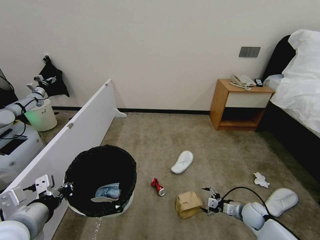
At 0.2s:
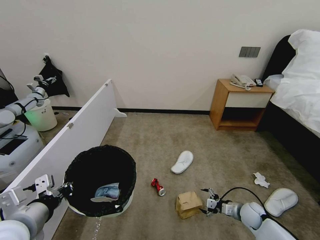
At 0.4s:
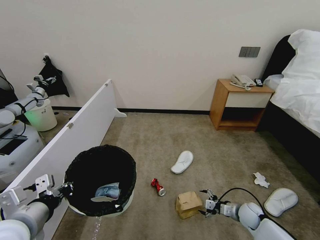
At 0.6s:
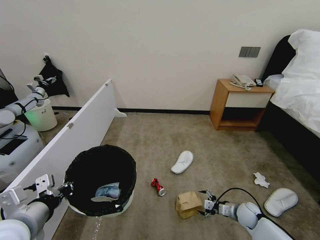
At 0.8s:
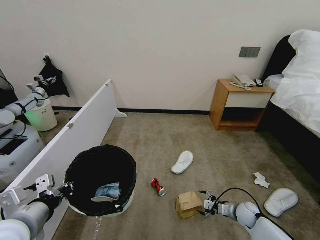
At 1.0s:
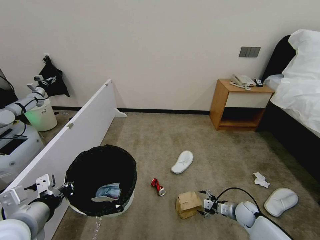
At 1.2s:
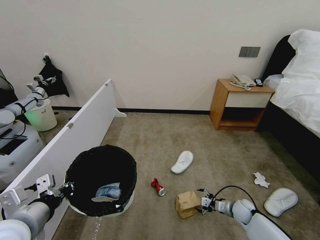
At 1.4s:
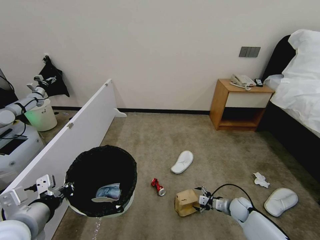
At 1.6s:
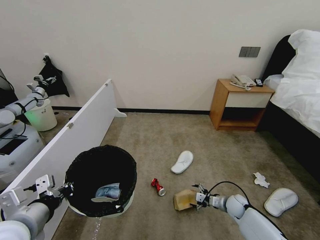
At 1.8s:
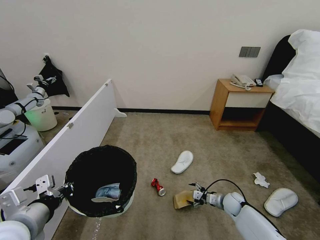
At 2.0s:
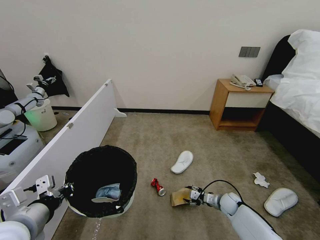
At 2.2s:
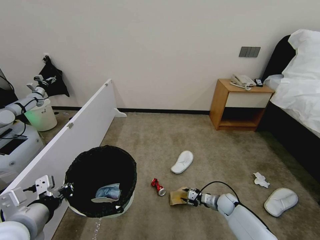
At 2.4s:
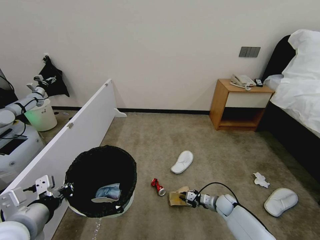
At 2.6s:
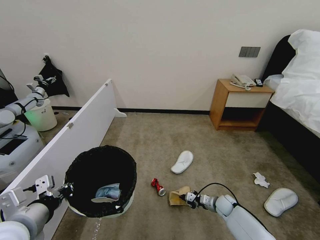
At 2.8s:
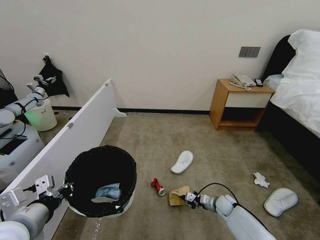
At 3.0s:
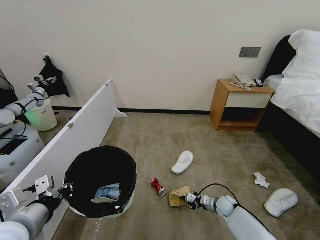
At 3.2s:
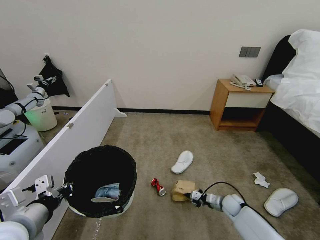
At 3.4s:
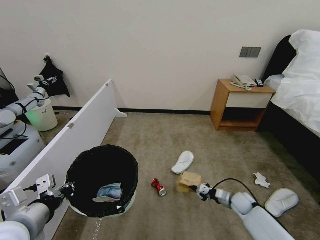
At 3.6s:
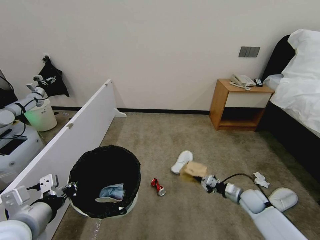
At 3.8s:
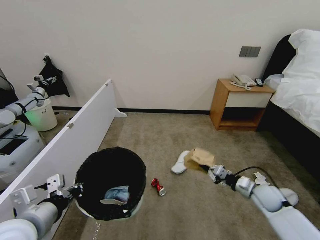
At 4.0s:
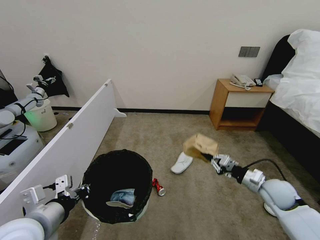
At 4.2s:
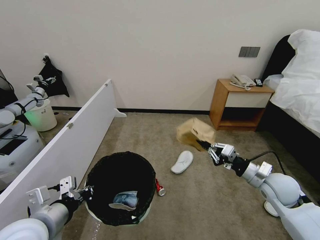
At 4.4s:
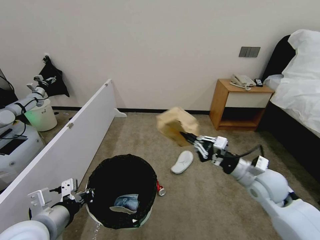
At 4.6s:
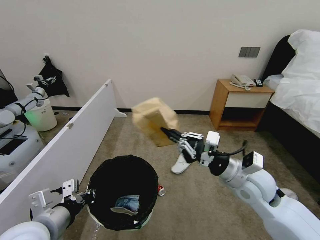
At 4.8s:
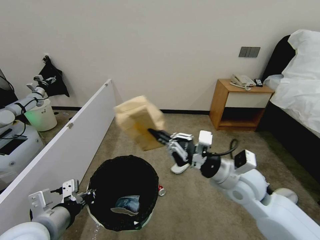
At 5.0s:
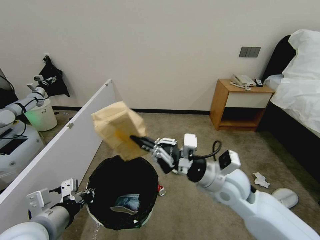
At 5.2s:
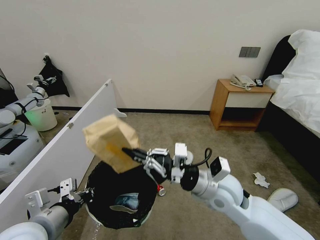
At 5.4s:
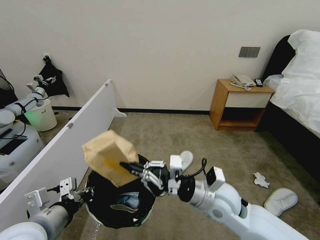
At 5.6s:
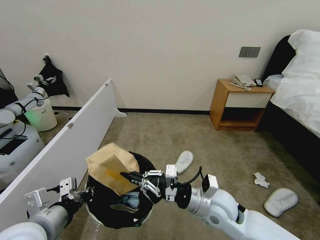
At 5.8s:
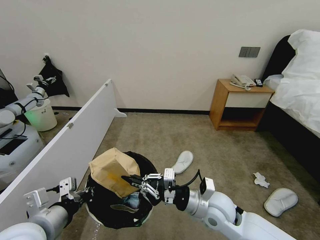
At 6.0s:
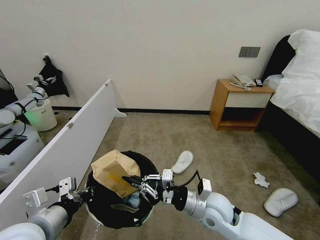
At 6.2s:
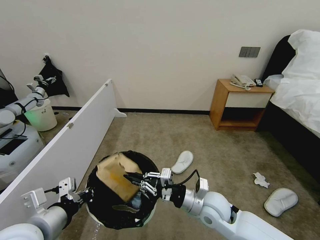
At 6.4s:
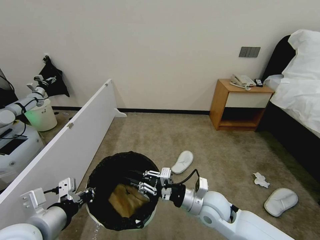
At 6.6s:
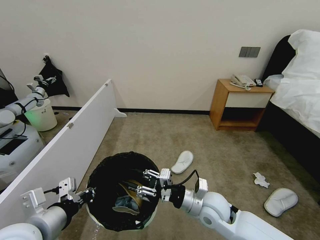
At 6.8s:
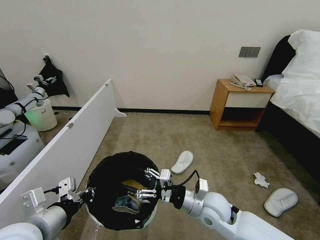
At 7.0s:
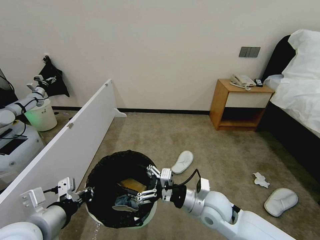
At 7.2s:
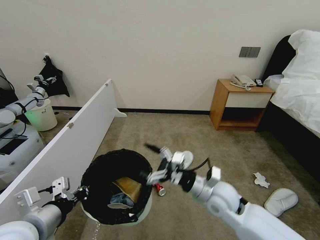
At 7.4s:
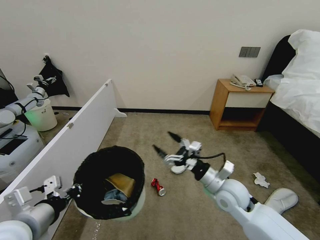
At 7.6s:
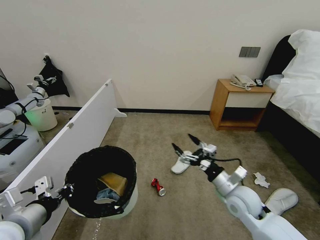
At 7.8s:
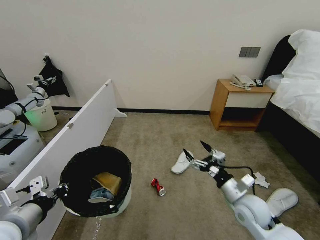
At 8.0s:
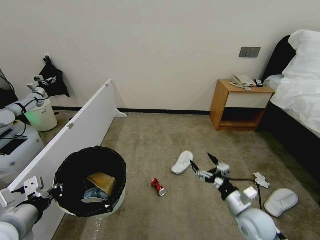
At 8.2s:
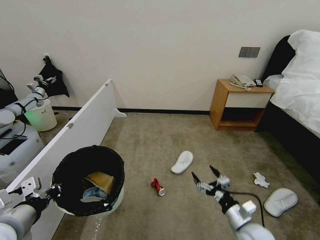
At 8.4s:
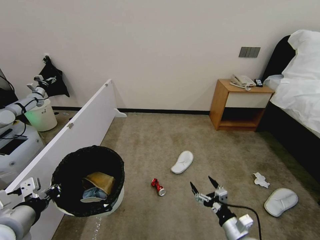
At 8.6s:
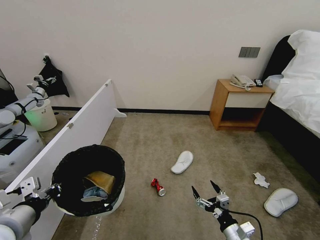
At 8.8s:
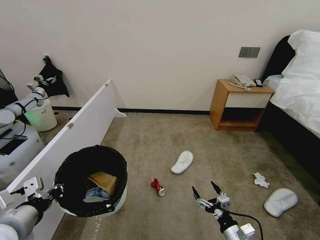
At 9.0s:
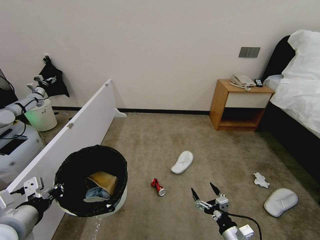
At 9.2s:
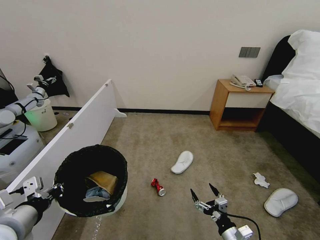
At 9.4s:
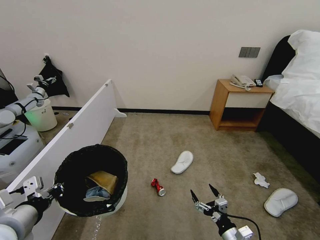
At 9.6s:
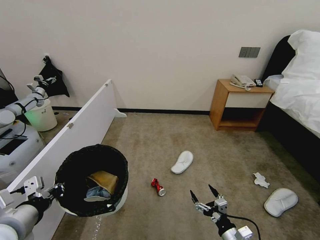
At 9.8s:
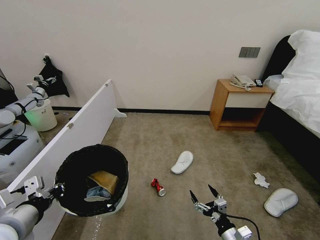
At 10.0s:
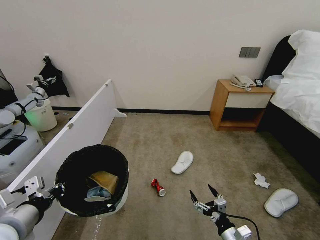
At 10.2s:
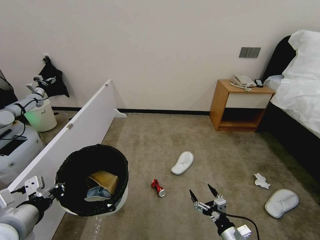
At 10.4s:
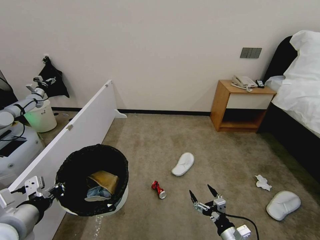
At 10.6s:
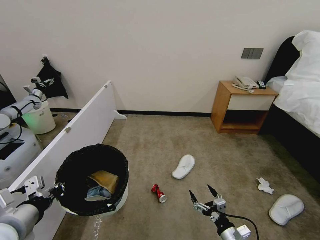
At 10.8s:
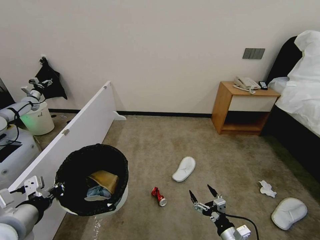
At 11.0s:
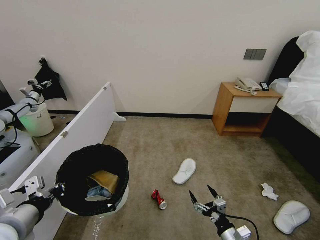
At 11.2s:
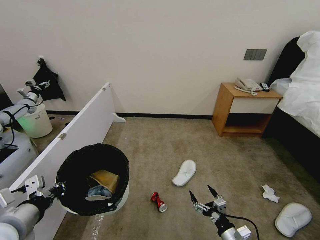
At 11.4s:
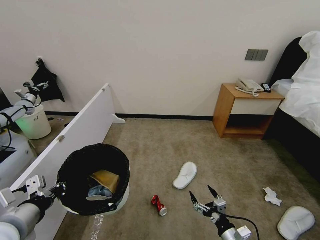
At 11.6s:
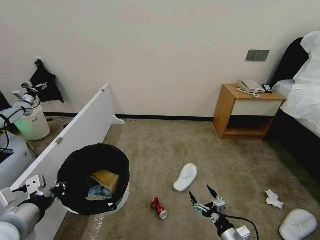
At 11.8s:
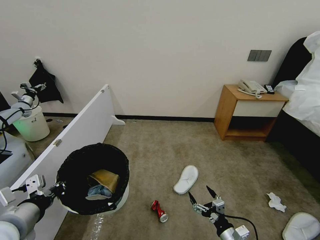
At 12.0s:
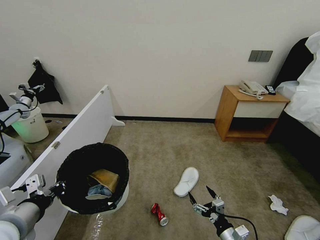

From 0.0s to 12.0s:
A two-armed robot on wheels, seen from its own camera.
Task of the whole recording: Pick up the trash bin, then pick up the garbage from the floor and place it into the trash bin.
From 0.0s to 1.6s: The right gripper shifts by about 5 cm.
From 1.6s to 3.0s: The right gripper moves roughly 5 cm, and closes.
From 3.0s to 4.4s: The right gripper goes about 30 cm upward.
From 4.4s to 6.0s: The right gripper is displaced to the left by approximately 20 cm.
From 6.0s to 7.6s: The right gripper moves to the right, some 10 cm, and opens up.
From 7.6s to 9.0s: The right gripper is displaced downward and backward by approximately 20 cm.
From 9.0s to 10.4s: Both grippers stay put.

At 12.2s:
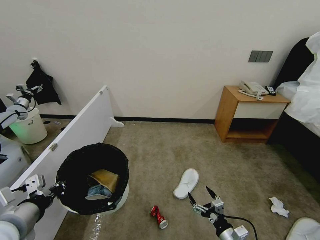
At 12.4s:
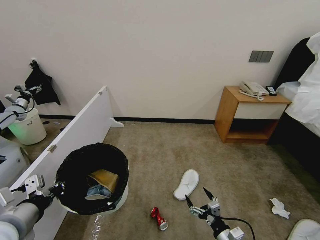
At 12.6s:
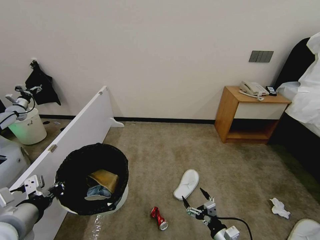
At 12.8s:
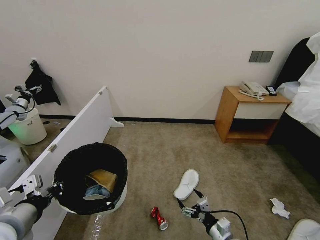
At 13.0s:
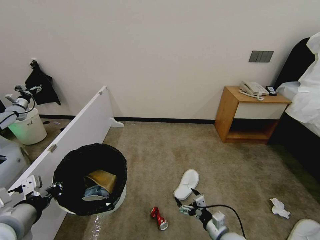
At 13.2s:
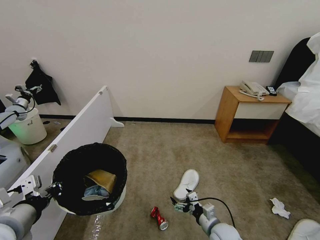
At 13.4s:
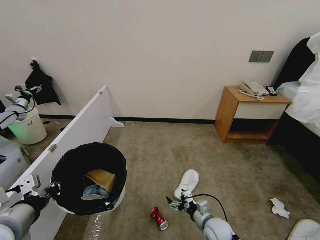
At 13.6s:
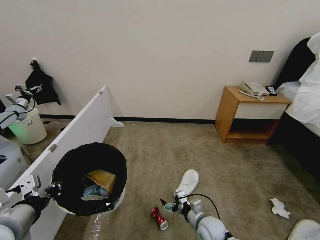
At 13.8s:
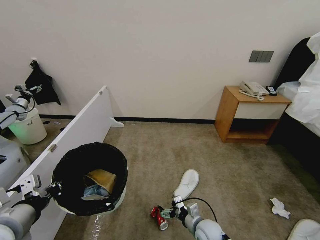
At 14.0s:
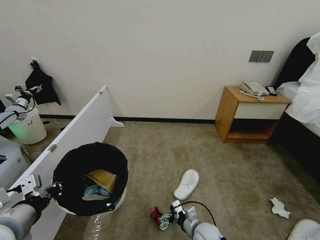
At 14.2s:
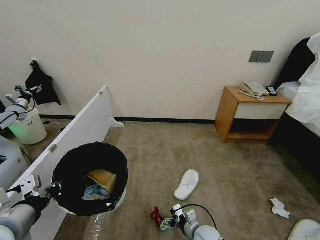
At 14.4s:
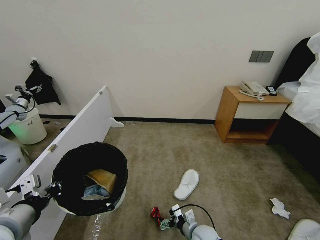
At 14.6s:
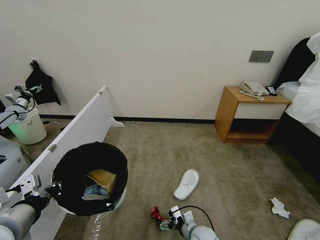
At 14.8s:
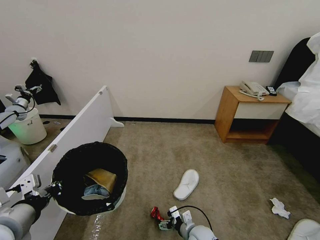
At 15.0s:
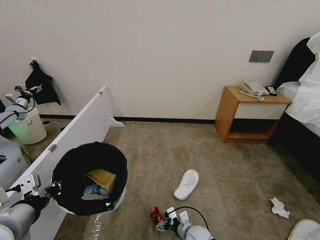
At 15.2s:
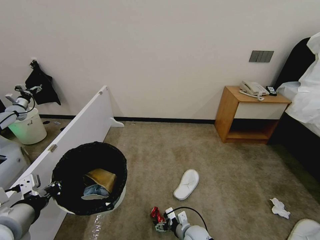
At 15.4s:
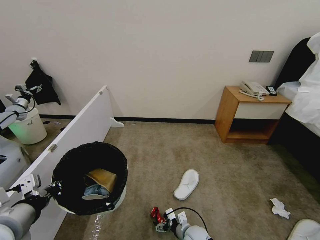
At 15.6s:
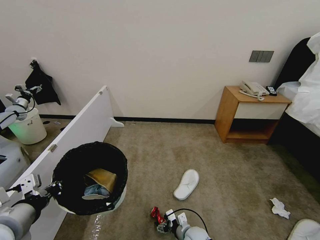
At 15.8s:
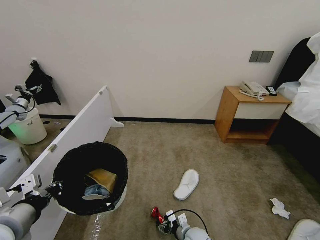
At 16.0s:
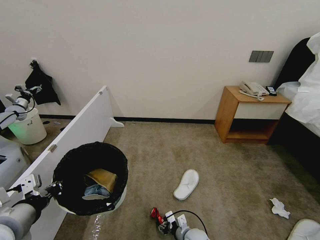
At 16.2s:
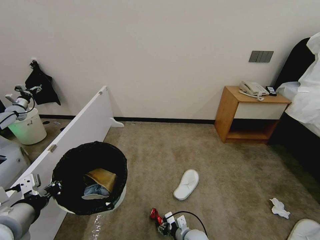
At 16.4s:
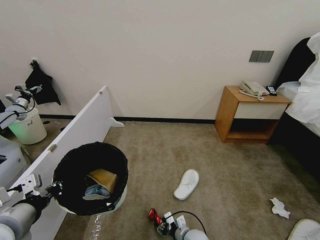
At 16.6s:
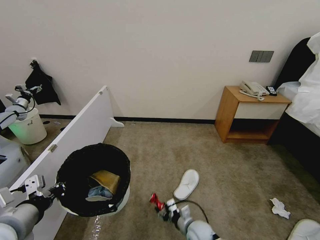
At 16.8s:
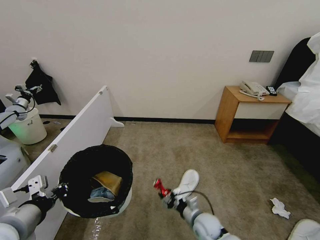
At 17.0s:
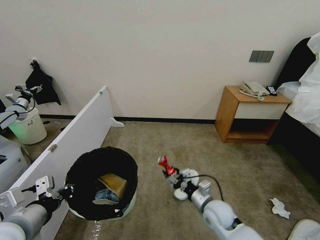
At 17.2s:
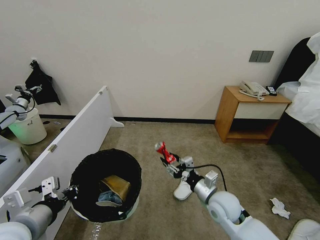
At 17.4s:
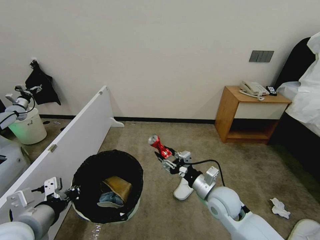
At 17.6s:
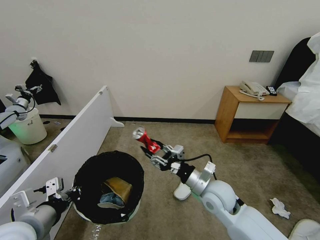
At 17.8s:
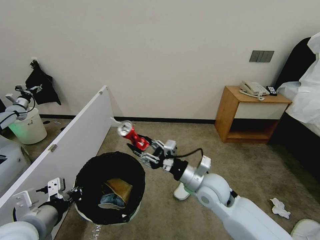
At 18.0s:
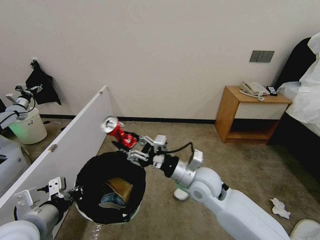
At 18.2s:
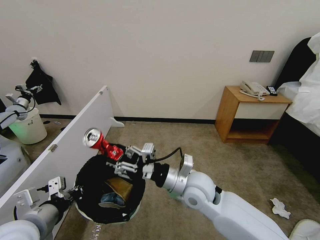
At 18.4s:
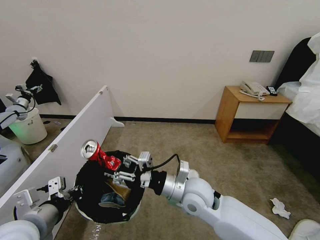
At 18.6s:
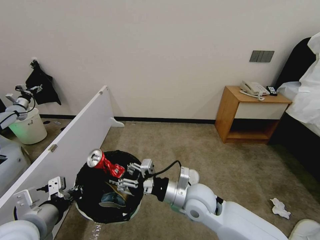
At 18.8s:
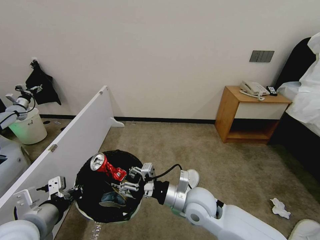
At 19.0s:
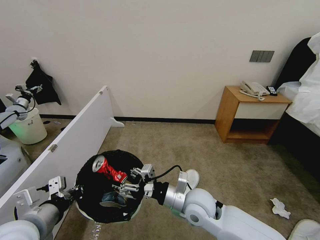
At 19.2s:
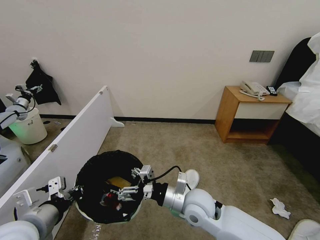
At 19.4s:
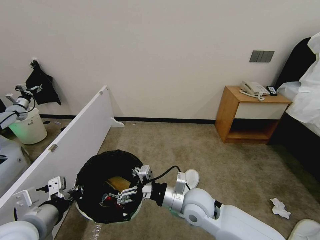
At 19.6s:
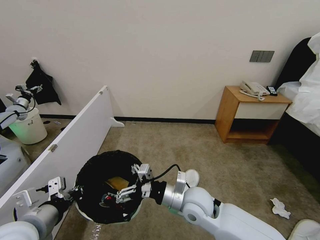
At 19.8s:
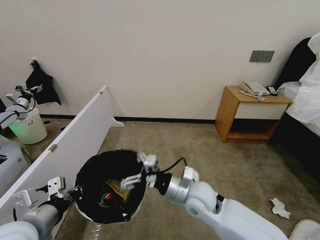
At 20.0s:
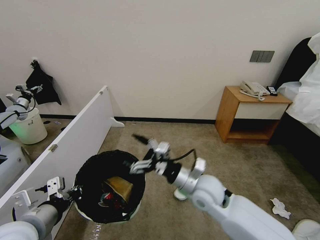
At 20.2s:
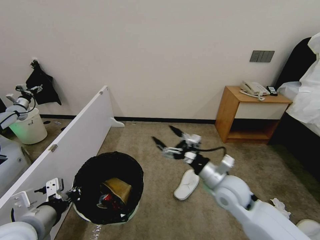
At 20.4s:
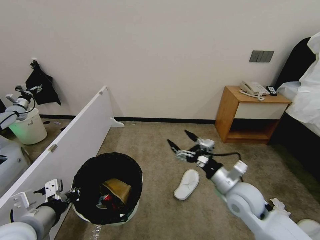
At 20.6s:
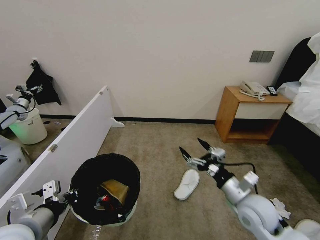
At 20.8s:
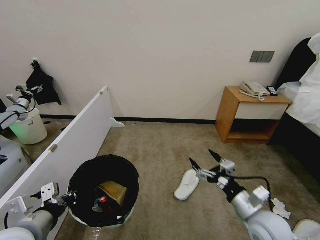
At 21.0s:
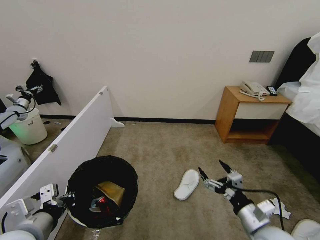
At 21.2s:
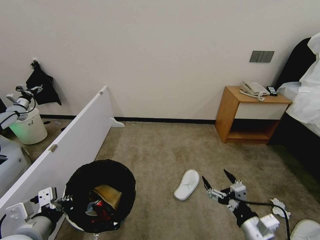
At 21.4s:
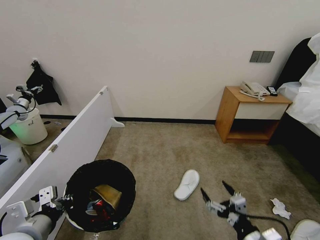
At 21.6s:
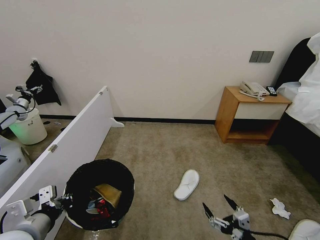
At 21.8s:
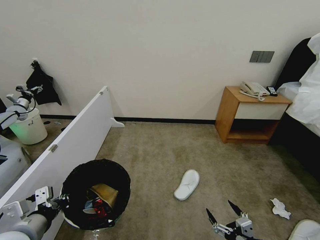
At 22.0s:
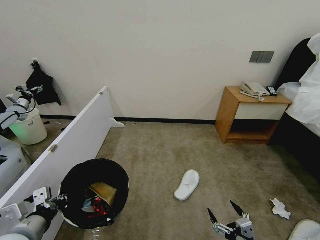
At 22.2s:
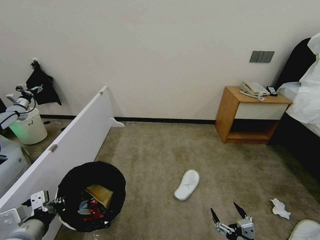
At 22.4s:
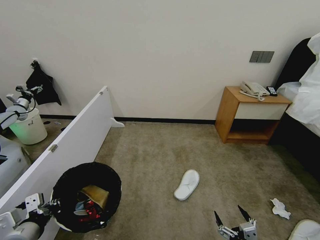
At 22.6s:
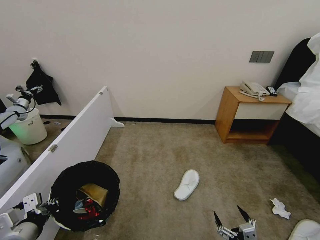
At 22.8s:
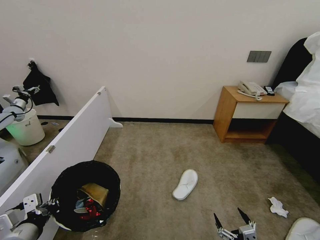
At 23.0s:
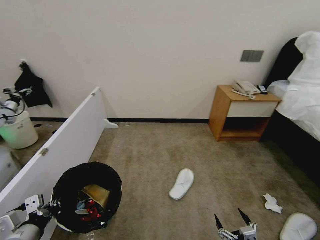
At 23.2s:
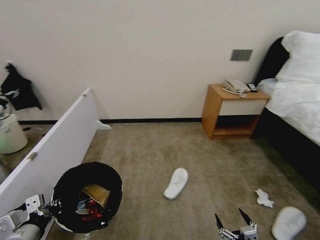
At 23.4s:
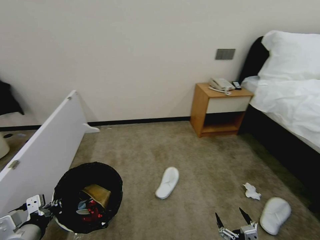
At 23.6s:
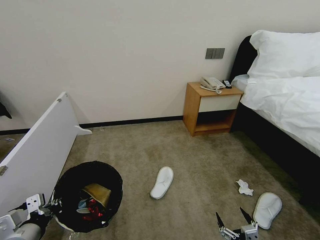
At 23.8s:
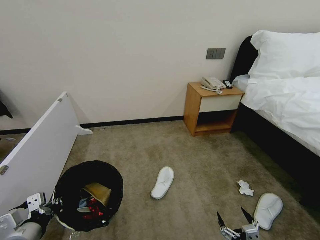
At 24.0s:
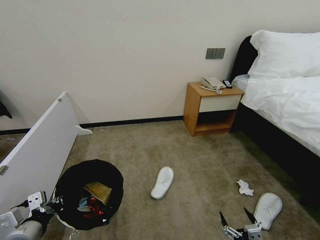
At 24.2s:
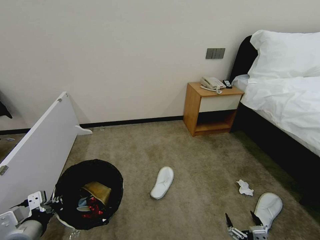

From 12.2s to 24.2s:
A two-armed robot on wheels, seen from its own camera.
Task of the whole recording: Pick up the trash bin, then pick up the garbage from the floor and place it into the trash bin.
From 12.2s to 13.8s: The right gripper travels to the left and forward by approximately 15 cm.
From 13.8s to 15.2s: The right gripper moves downward, about 5 cm.
From 15.2s to 16.6s: The right gripper closes.
From 16.6s to 18.2s: The right gripper travels upward by about 30 cm.
From 18.2s to 19.8s: The right gripper opens its fingers.
From 19.8s to 21.2s: The right gripper moves to the right and backward, roughly 25 cm.
From 21.2s to 22.6s: The right gripper travels backward and downward by about 10 cm. The left gripper moves to the left, about 5 cm.
